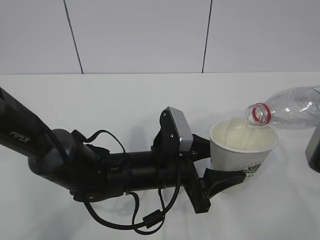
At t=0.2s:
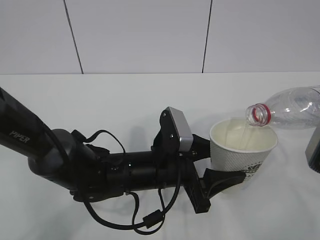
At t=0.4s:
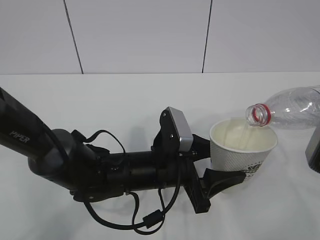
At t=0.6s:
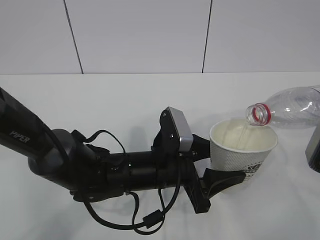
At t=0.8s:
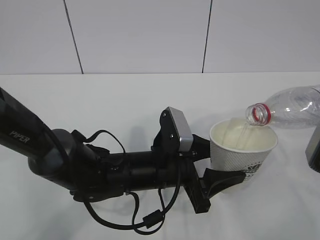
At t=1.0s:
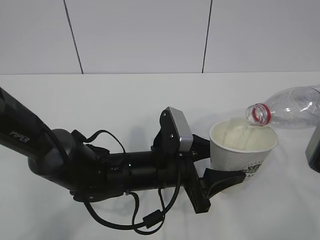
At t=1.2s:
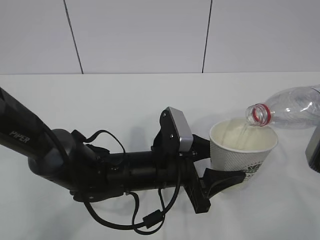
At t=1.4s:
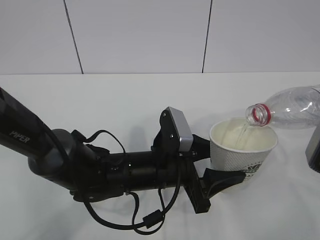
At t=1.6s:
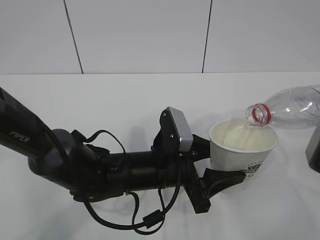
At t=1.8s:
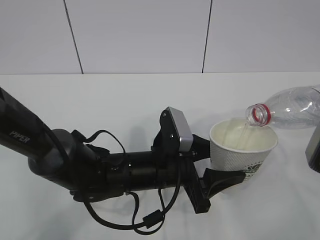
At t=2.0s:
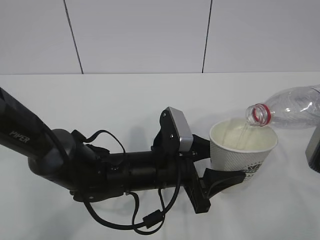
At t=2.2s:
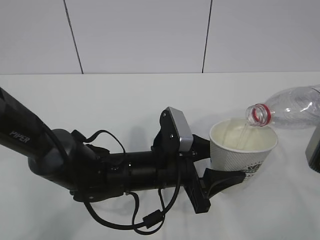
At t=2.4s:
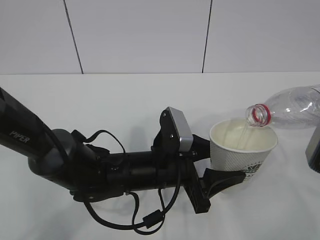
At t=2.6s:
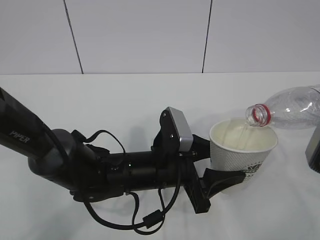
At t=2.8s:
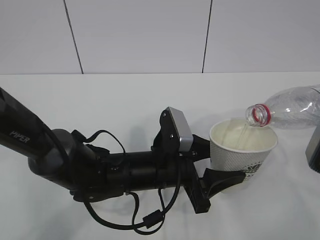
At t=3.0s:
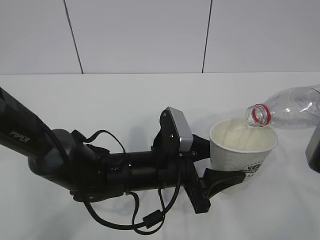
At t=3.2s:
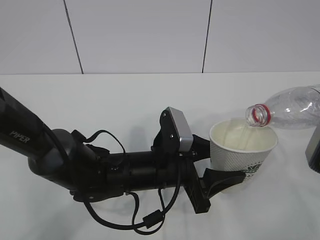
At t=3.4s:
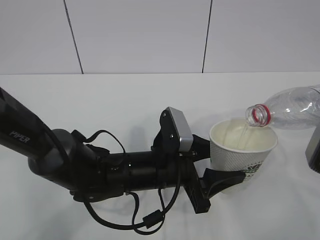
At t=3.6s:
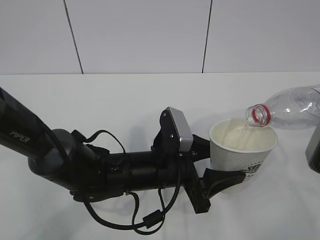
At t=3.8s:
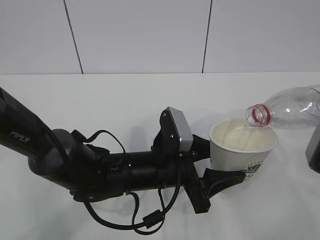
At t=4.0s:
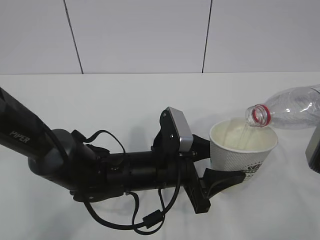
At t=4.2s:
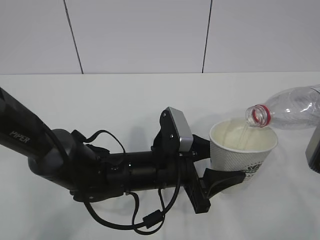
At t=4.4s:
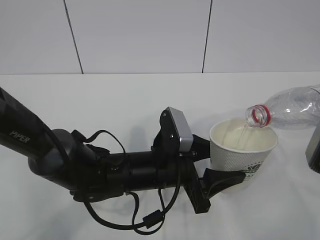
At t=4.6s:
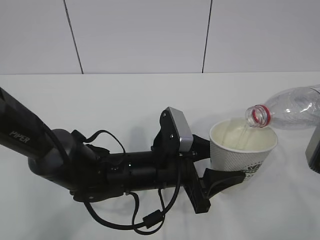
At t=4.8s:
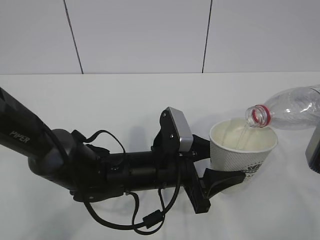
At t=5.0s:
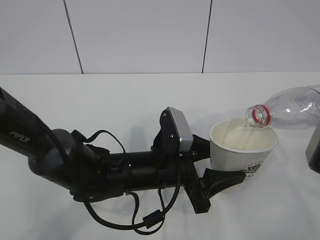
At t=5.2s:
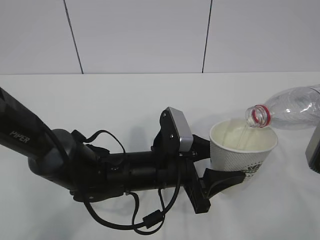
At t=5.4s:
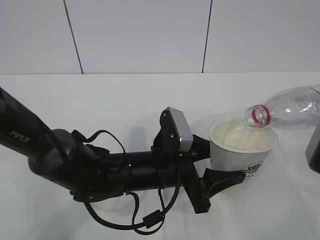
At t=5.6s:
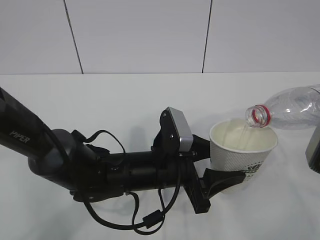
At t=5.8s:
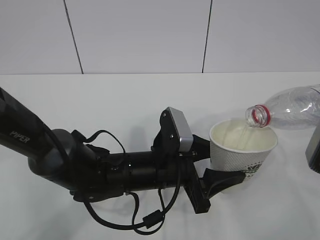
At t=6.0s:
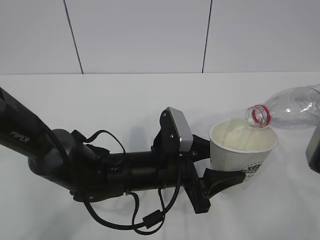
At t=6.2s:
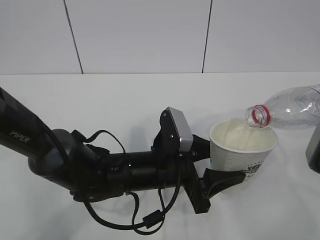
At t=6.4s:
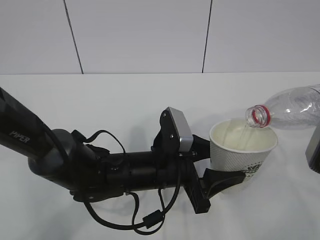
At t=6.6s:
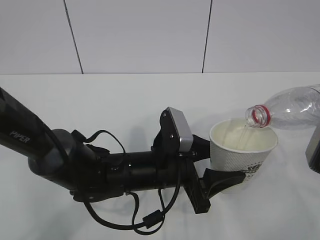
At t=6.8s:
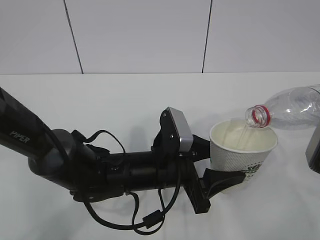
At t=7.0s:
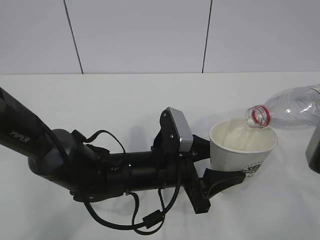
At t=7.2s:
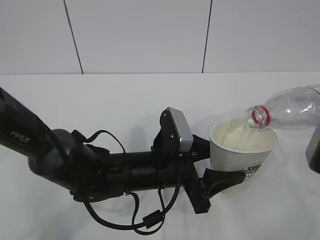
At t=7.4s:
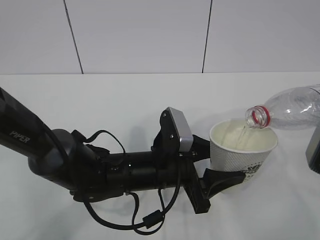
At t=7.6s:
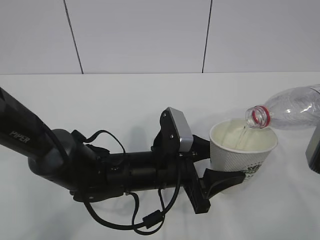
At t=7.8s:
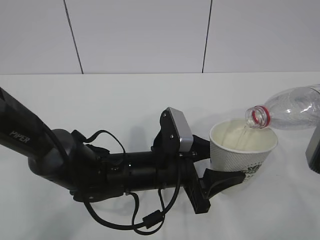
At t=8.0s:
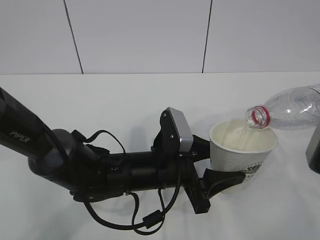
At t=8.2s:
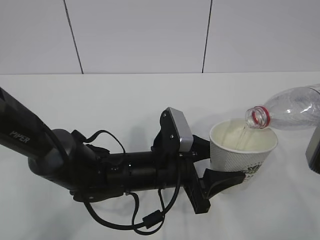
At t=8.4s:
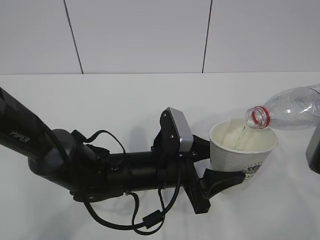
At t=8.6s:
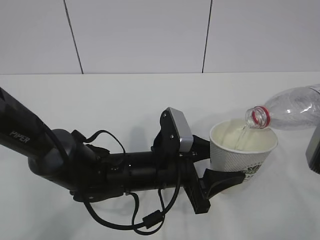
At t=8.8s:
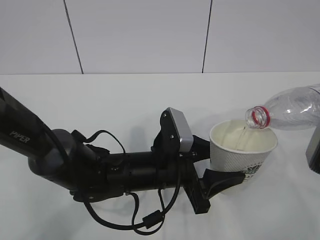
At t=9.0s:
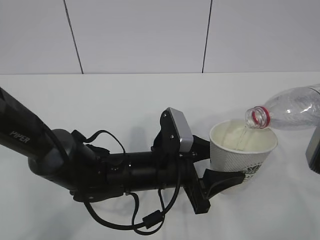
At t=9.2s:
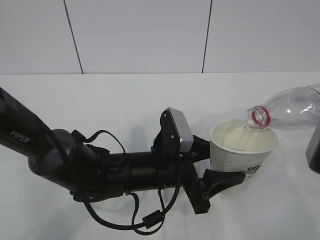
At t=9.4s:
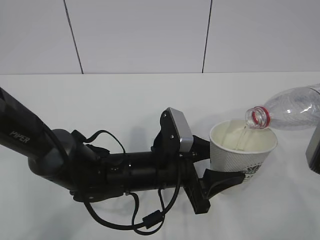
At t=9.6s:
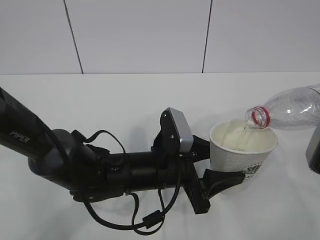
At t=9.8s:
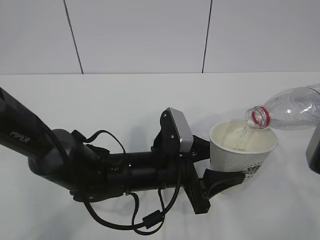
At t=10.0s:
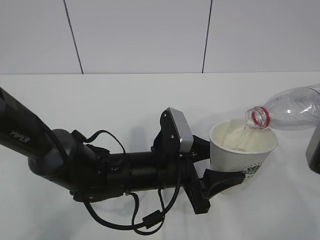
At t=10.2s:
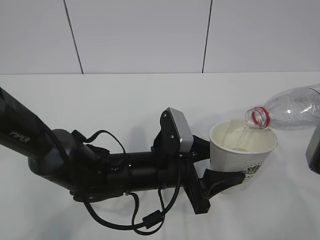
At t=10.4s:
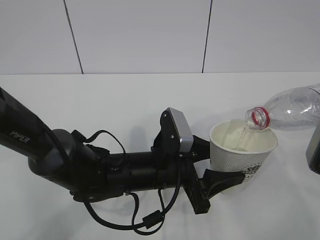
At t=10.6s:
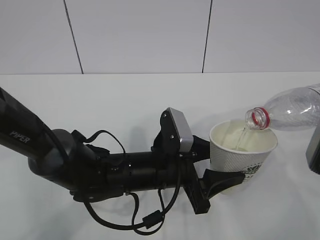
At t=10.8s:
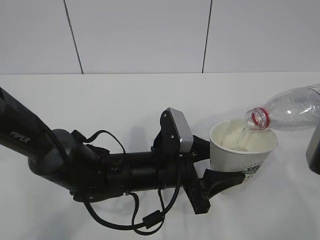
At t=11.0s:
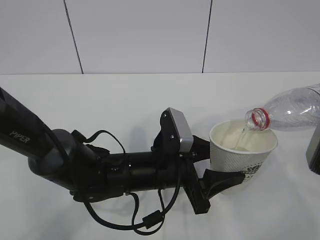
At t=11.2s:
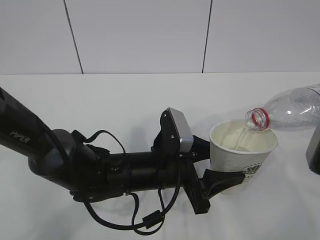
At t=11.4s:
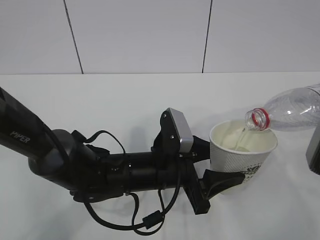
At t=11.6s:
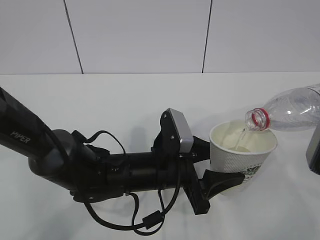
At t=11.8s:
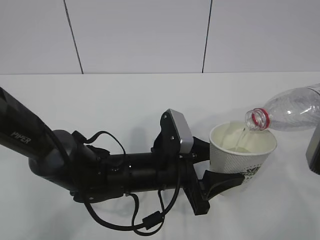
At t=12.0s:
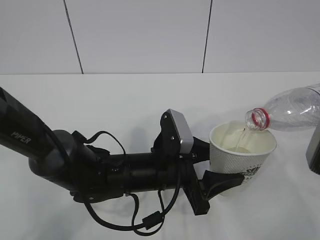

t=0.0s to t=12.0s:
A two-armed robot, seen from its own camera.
t=0.0s to t=12.0s: The two grippers keep their place.

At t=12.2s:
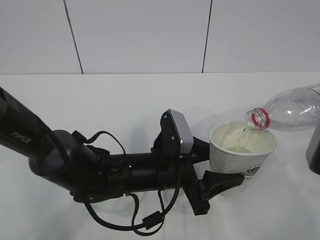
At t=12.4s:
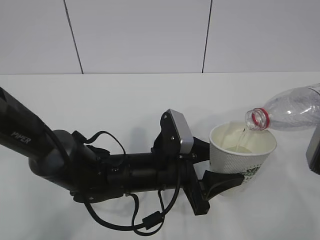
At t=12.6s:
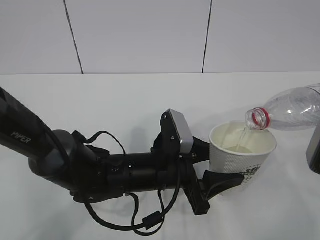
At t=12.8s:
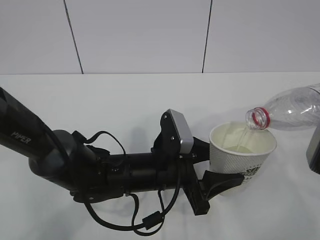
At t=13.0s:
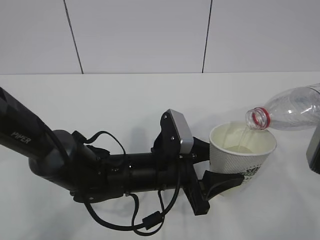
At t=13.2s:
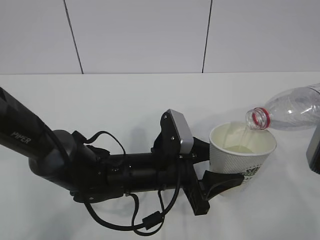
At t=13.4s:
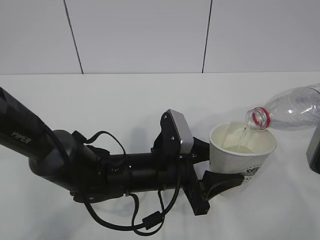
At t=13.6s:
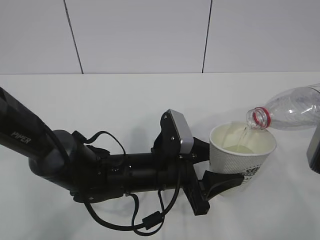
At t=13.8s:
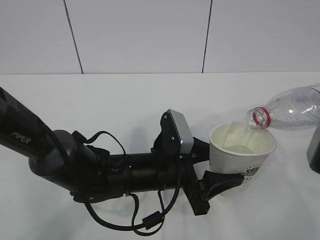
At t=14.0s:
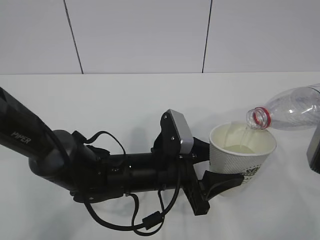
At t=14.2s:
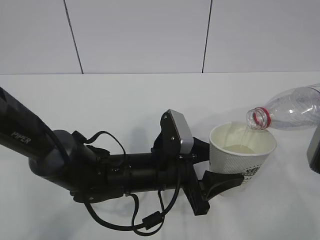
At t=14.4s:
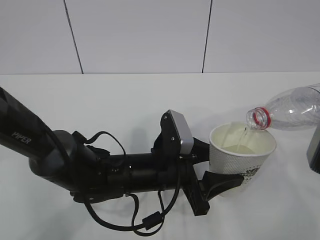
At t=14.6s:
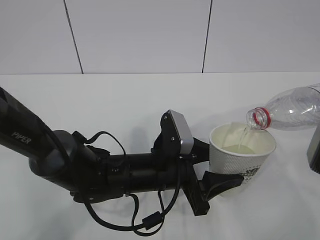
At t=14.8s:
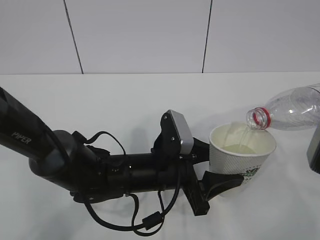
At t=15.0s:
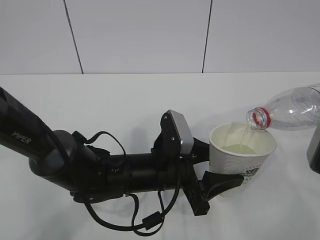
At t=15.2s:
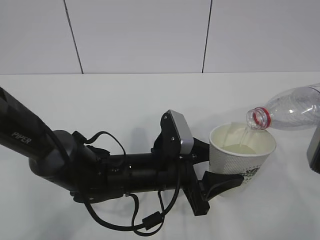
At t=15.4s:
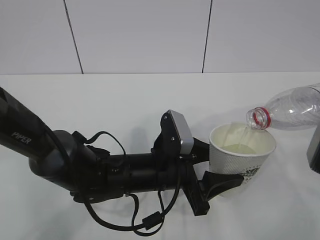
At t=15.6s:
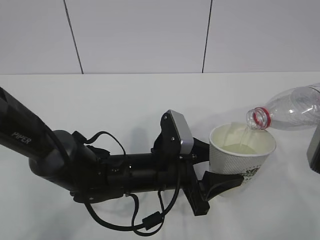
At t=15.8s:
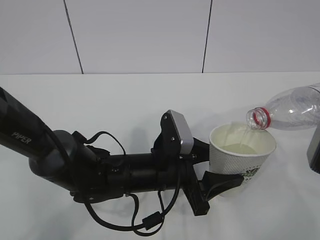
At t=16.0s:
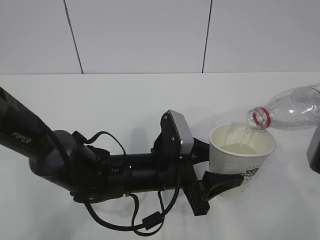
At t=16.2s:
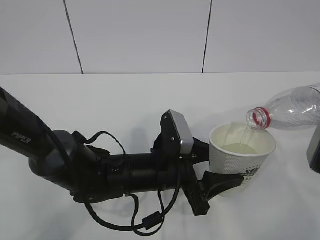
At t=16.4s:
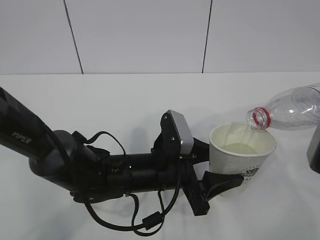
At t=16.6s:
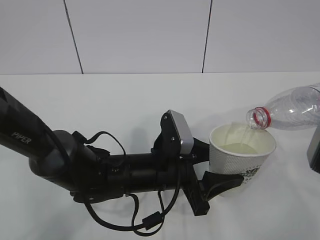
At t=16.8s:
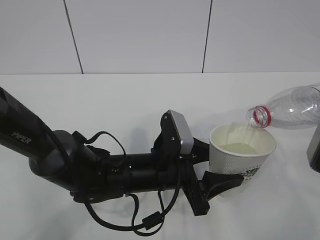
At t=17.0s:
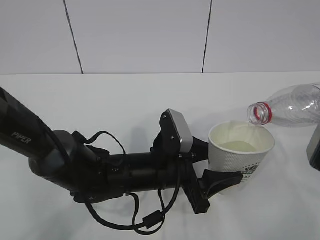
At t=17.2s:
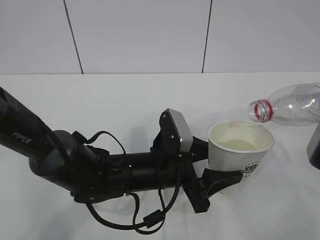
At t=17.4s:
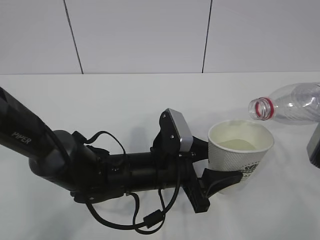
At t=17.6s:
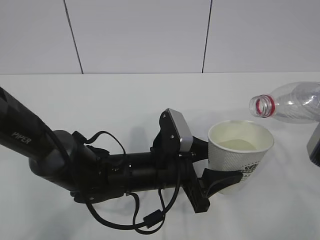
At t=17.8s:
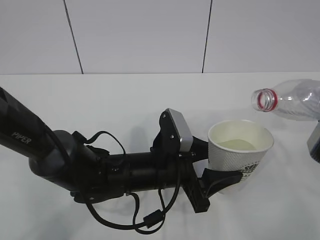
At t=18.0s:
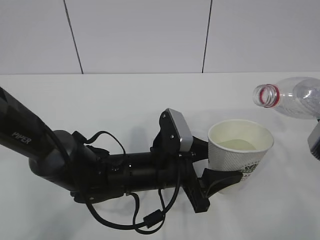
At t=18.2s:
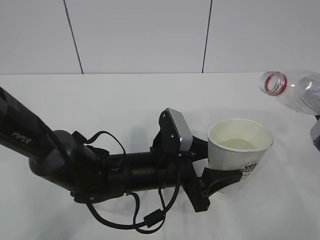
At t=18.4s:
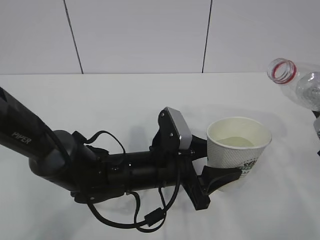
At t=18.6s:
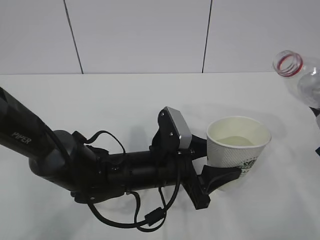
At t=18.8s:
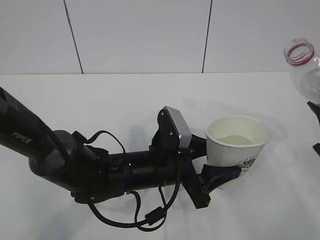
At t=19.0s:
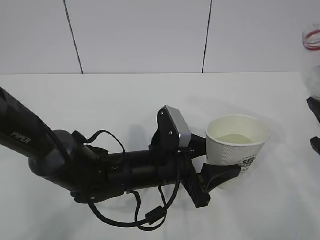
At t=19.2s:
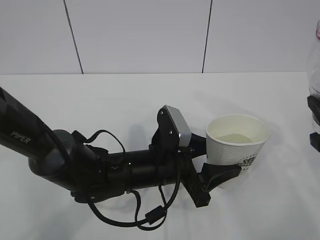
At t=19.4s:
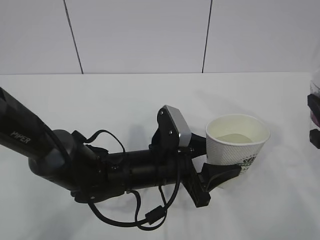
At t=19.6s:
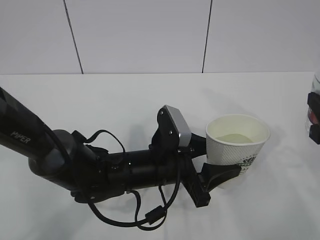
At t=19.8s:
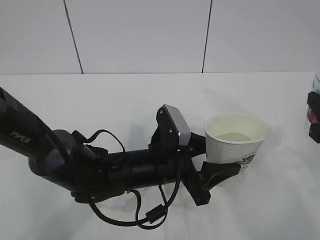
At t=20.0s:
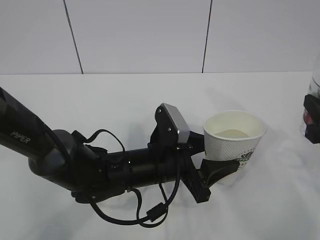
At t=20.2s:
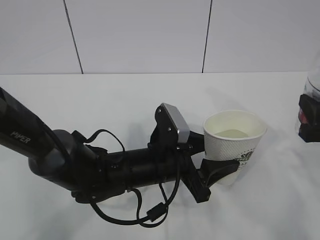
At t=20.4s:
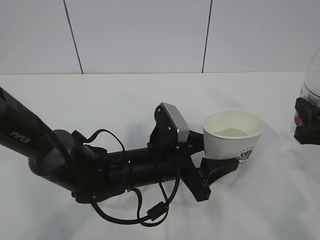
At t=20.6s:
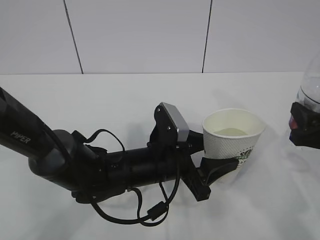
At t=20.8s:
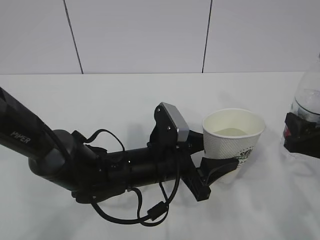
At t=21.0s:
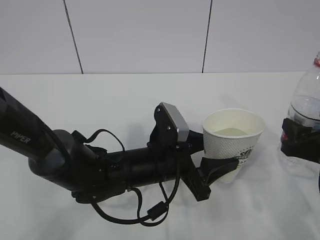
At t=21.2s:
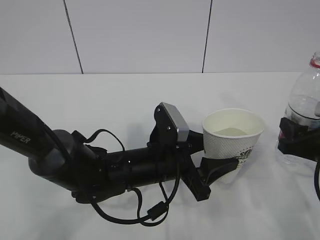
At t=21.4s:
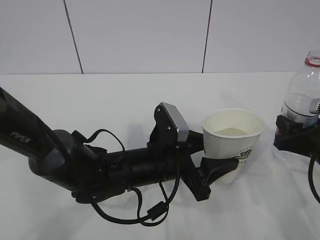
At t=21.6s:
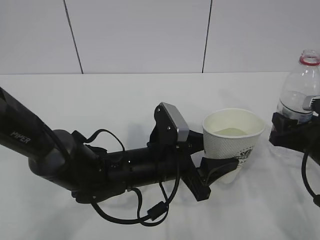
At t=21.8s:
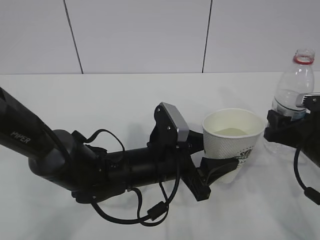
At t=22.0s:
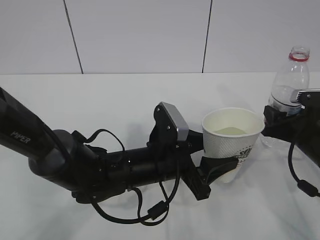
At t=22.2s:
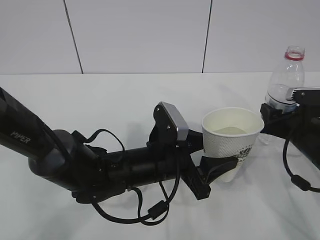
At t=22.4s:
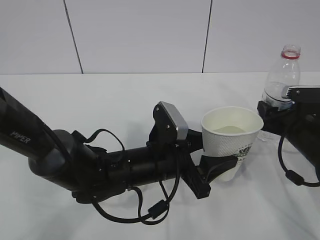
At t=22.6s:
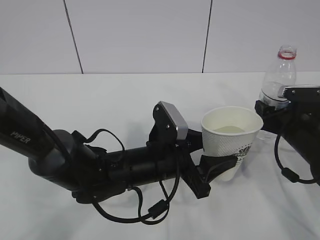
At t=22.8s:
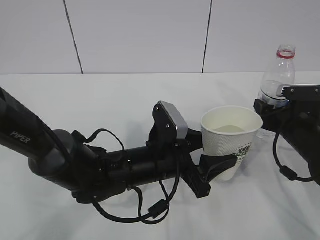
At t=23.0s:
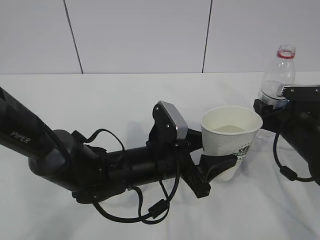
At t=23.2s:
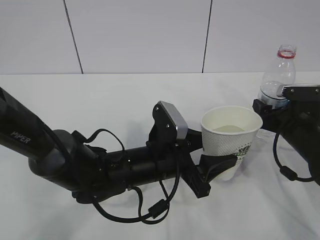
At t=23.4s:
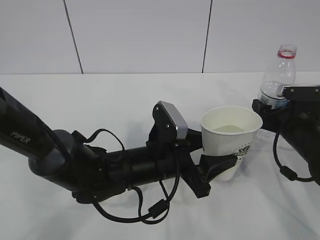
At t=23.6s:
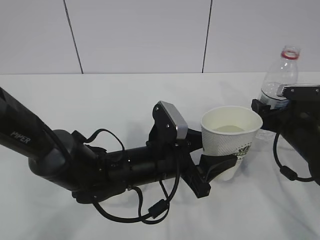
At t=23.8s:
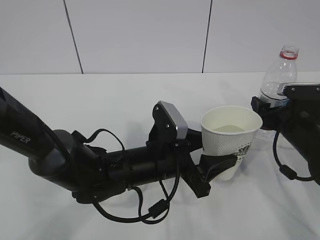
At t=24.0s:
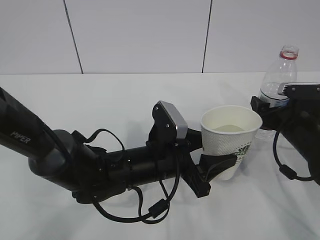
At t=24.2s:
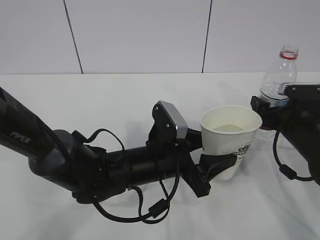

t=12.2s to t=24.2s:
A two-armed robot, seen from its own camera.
t=12.2s to t=16.6s: Both grippers stay about where they are.
t=19.8s to t=21.2s: The right gripper moves downward, approximately 10 cm.
t=21.2s to t=22.6s: The right gripper moves forward, approximately 10 cm.
t=22.6s to t=24.2s: The right gripper opens.
